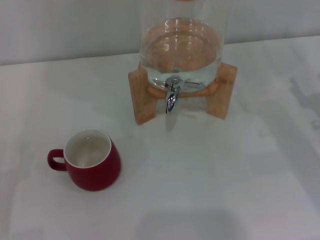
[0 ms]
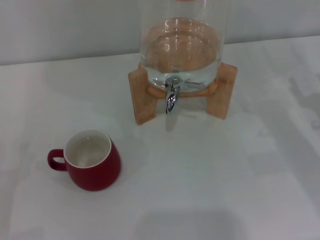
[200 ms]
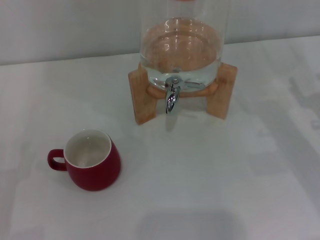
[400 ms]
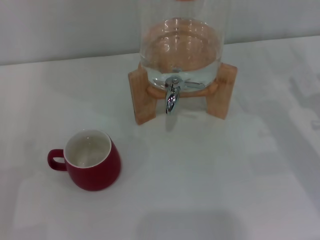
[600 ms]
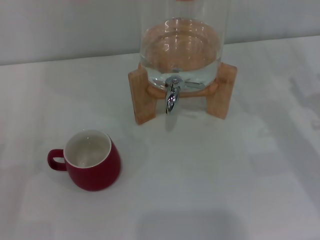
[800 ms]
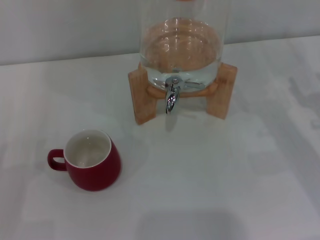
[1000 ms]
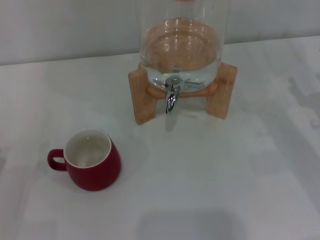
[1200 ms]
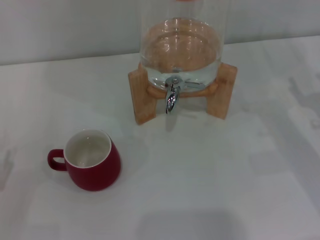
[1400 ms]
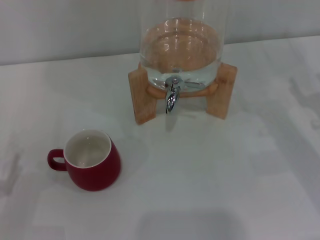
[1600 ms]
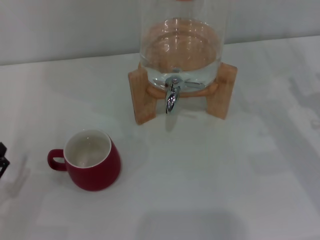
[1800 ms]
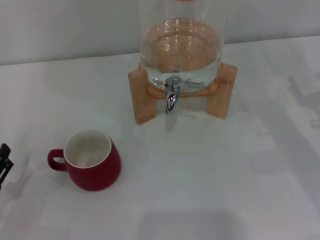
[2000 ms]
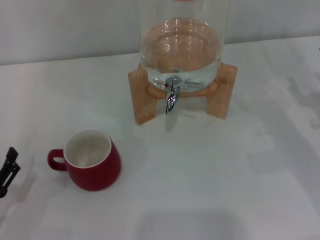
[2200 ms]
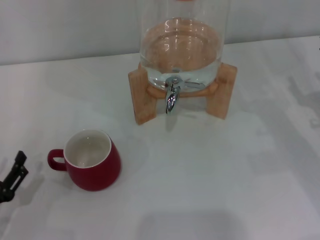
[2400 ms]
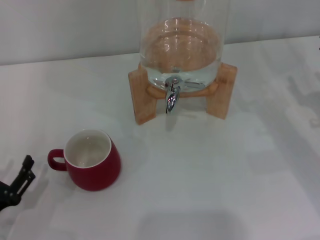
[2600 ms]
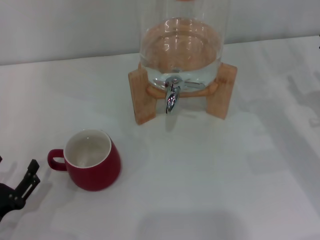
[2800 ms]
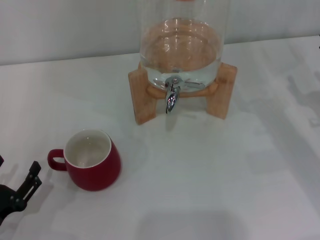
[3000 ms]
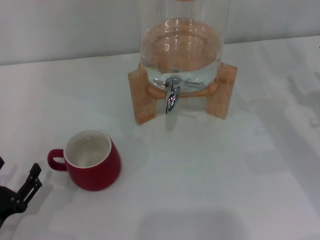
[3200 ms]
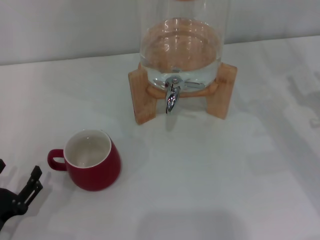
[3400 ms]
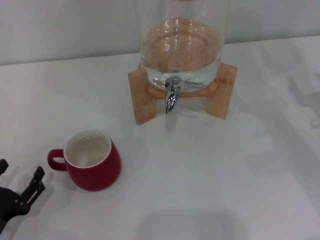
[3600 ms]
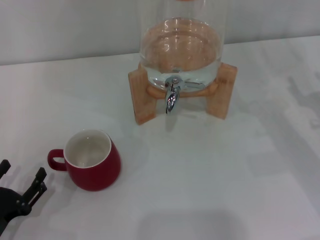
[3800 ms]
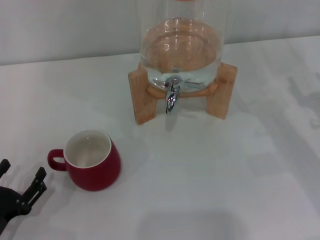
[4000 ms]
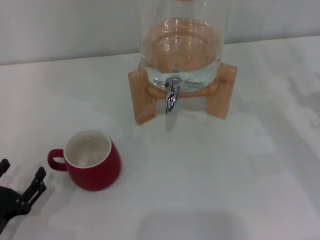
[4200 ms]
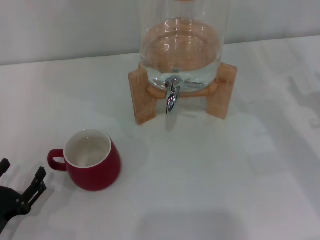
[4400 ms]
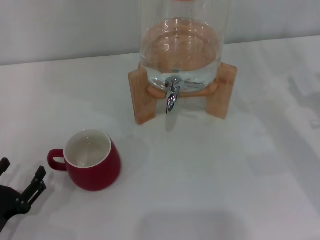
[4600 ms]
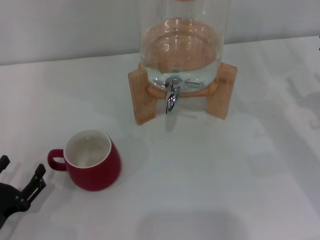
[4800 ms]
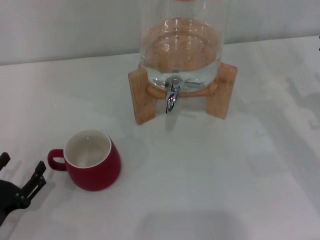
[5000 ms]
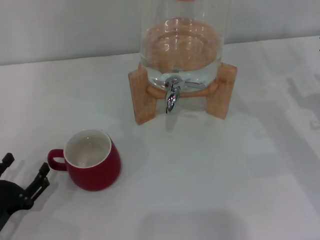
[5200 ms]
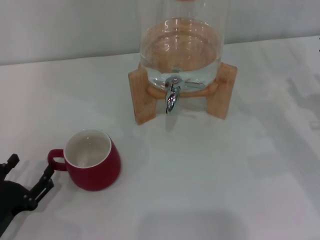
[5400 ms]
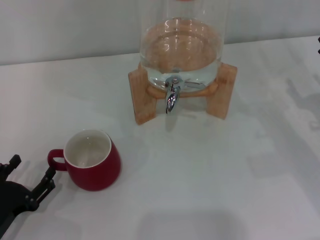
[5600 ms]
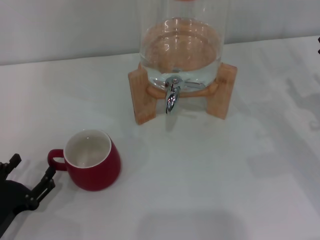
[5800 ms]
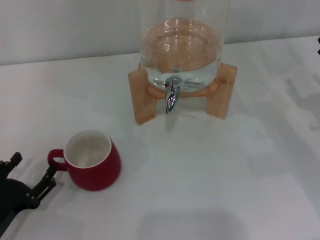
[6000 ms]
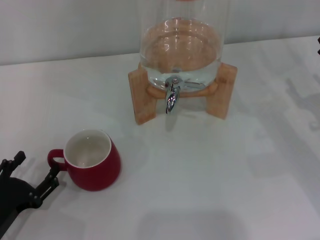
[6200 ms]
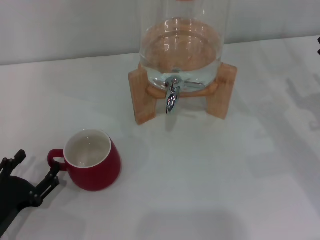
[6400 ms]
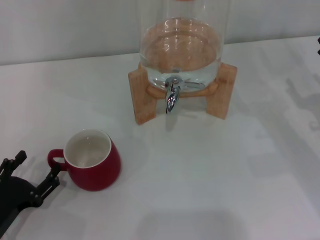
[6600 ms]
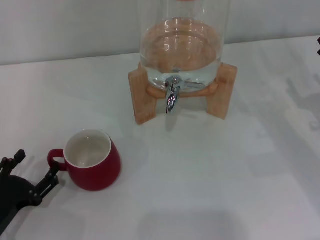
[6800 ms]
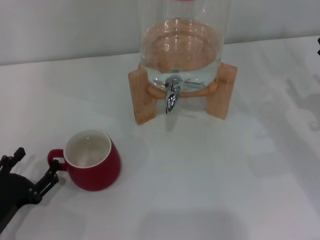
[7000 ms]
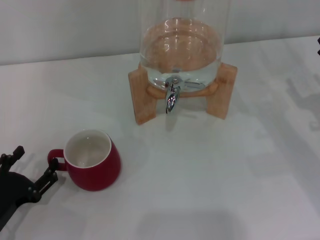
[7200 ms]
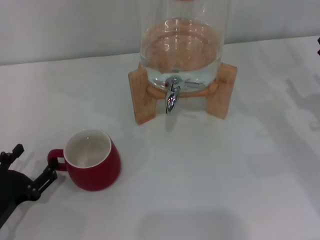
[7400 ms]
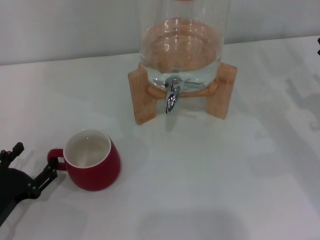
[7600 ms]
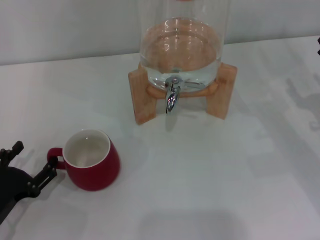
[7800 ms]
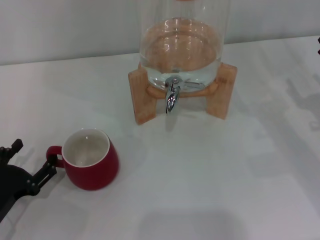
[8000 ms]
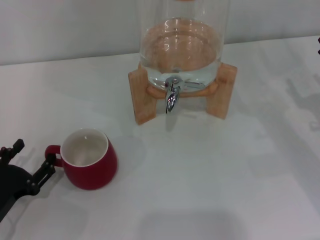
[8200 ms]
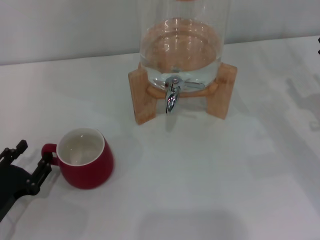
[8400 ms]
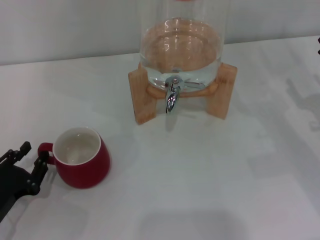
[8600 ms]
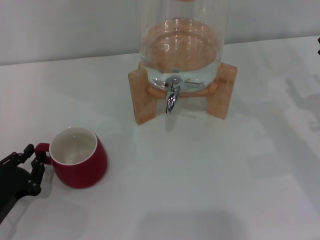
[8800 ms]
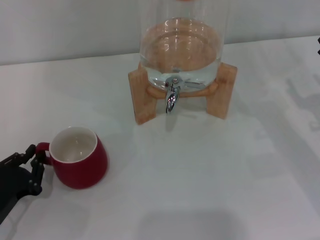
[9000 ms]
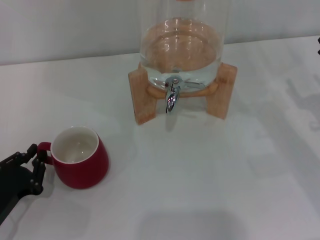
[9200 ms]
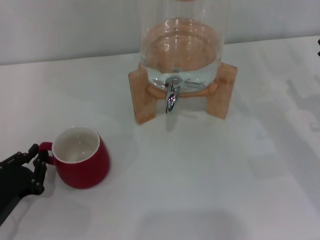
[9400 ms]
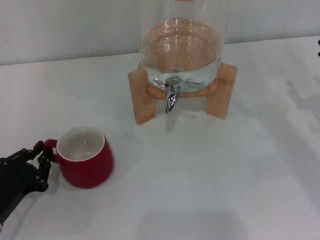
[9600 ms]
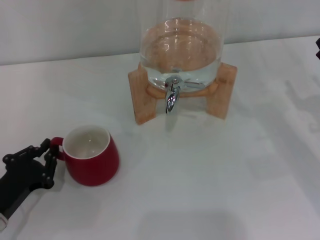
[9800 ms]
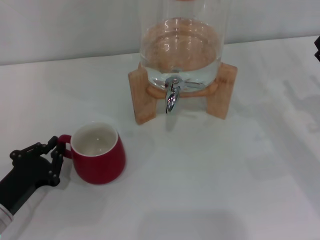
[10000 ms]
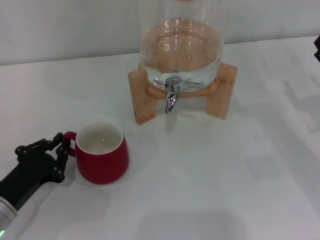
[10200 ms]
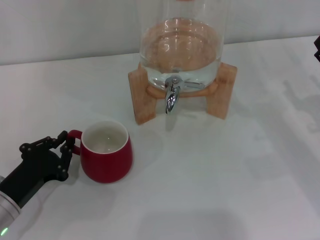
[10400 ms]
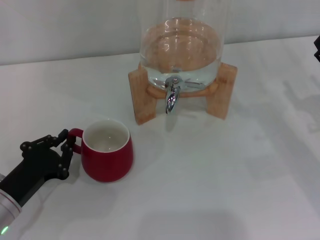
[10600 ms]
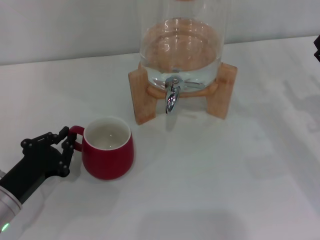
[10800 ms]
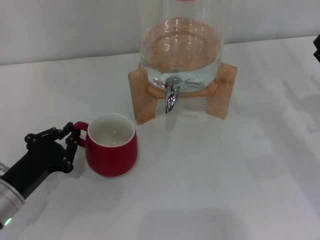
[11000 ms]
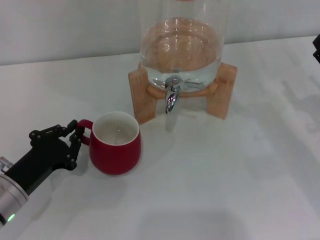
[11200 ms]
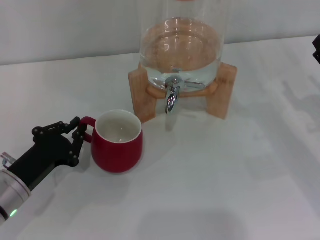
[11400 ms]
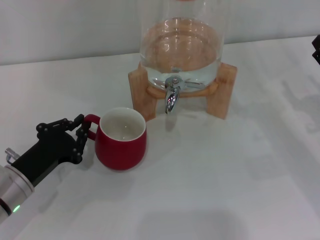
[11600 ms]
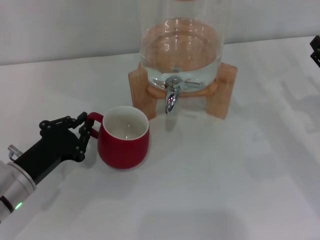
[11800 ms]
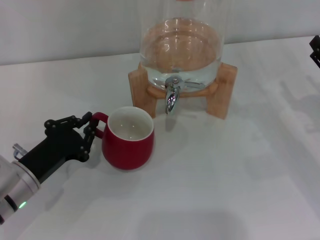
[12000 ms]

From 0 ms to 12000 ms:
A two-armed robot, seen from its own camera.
Task of the whole recording: the left gripper pick up the red cup and place it horizontally under the faucet, the right gripper turn on the faucet to fill the cup, and then turn off the faucet.
From 1600 ms to 3000 ms: There are only small adjustments of the grippers.
From 3000 ms to 4400 ms: The two grippers keep their place.
From 4400 ms to 7600 ms: The grippers move only a little.
From 7600 ms to 9000 ms: The left gripper closes.
From 9000 ms to 10400 ms: There are only small adjustments of the grippers.
From 10400 ms to 12000 ms: There are only small adjustments of the grippers.

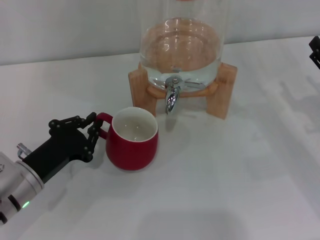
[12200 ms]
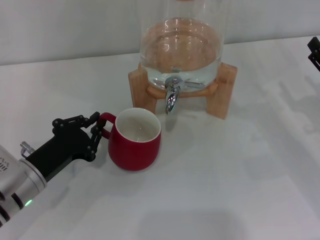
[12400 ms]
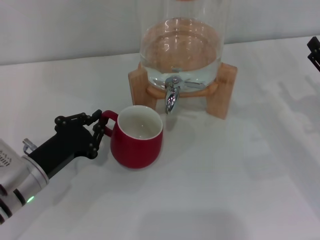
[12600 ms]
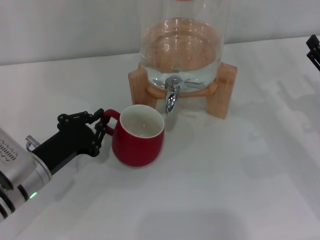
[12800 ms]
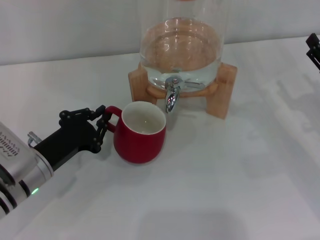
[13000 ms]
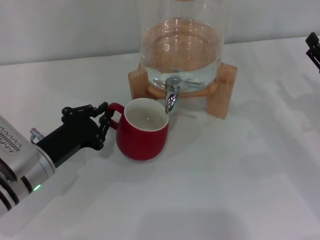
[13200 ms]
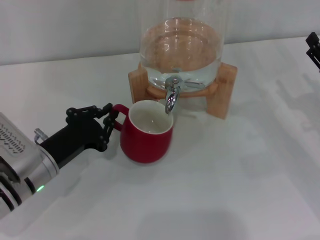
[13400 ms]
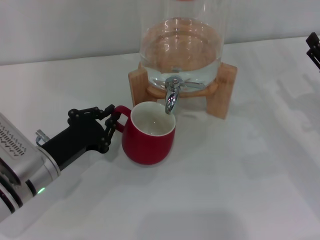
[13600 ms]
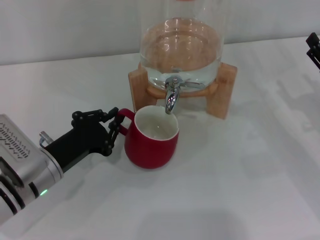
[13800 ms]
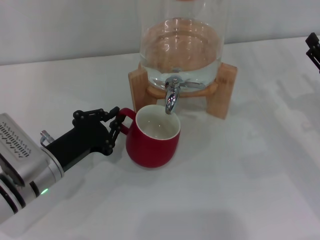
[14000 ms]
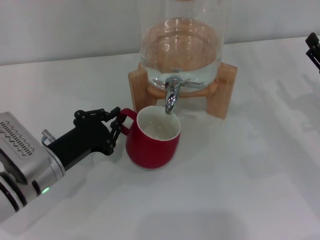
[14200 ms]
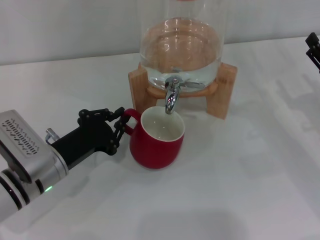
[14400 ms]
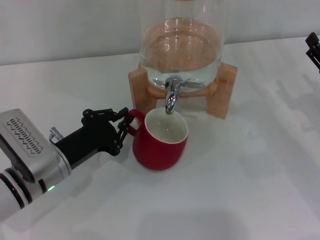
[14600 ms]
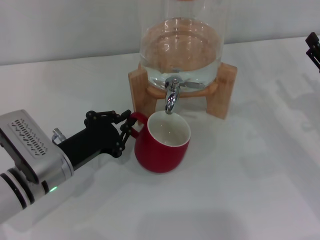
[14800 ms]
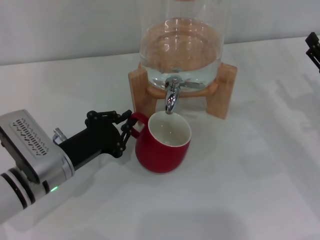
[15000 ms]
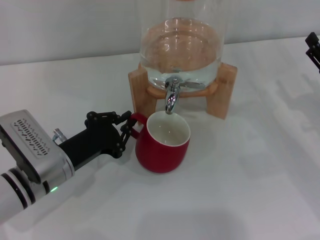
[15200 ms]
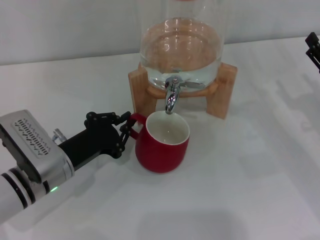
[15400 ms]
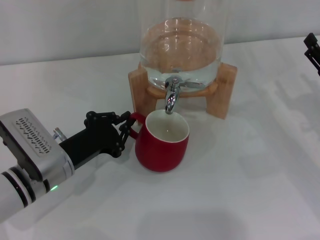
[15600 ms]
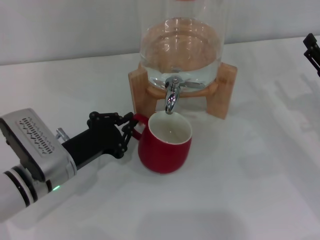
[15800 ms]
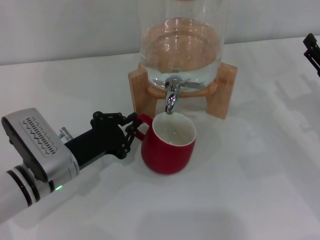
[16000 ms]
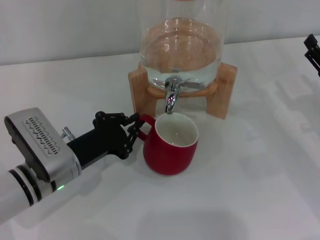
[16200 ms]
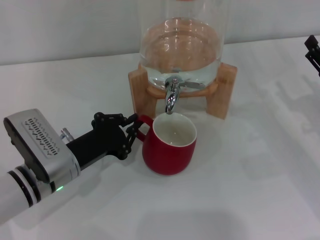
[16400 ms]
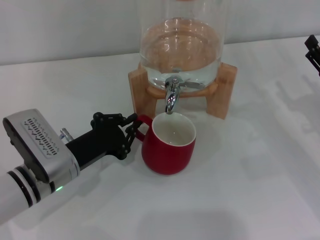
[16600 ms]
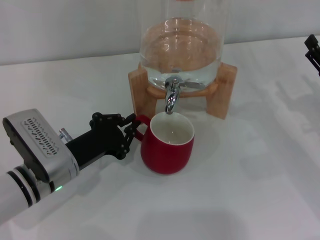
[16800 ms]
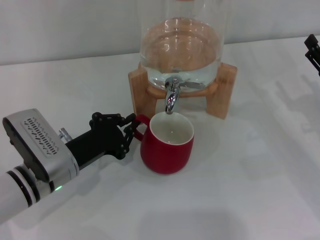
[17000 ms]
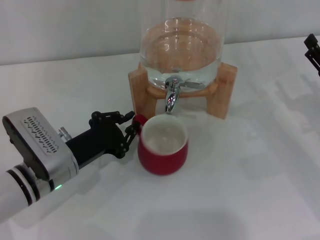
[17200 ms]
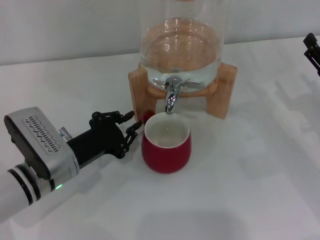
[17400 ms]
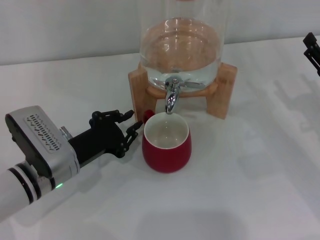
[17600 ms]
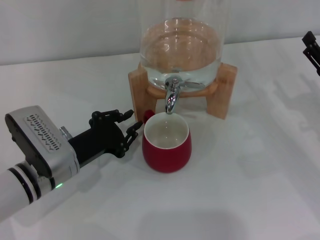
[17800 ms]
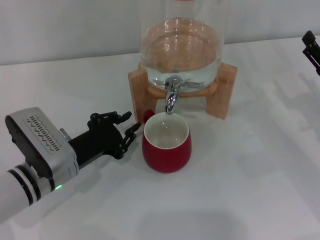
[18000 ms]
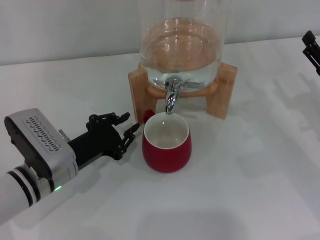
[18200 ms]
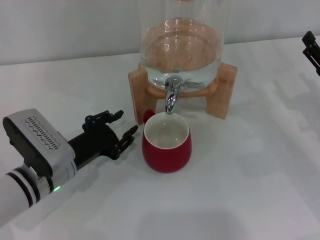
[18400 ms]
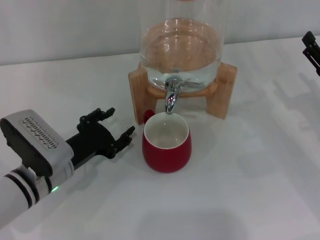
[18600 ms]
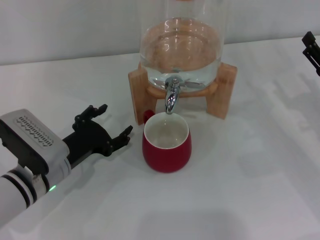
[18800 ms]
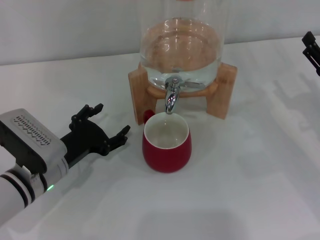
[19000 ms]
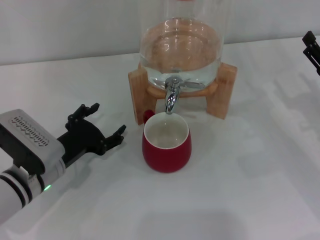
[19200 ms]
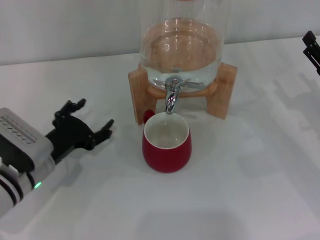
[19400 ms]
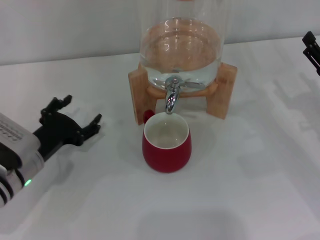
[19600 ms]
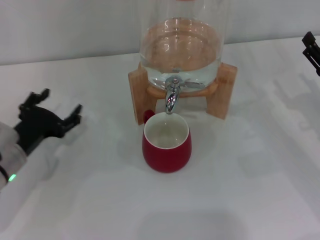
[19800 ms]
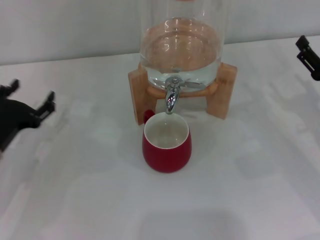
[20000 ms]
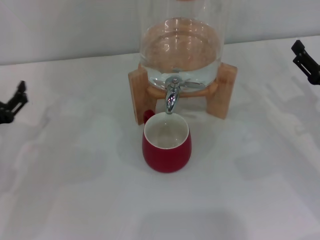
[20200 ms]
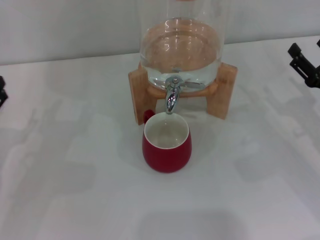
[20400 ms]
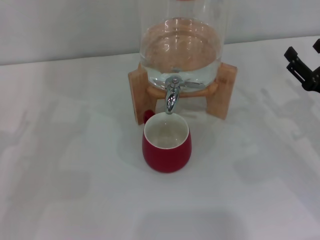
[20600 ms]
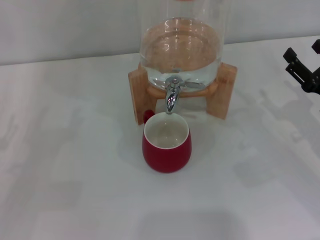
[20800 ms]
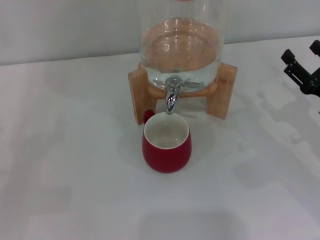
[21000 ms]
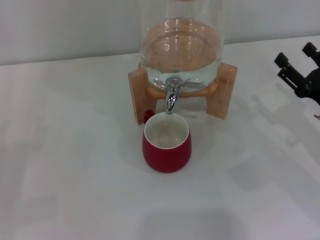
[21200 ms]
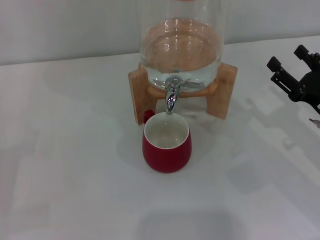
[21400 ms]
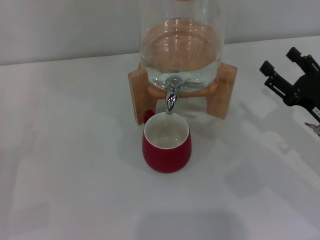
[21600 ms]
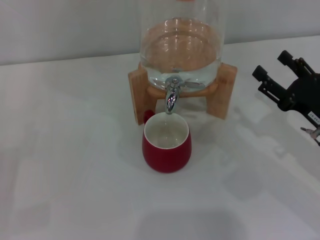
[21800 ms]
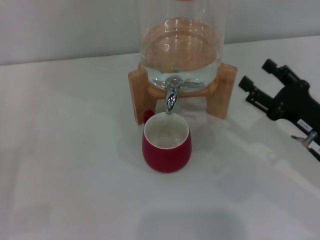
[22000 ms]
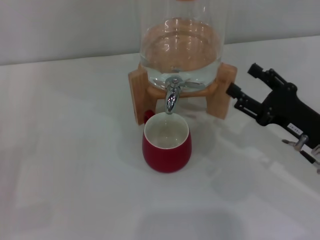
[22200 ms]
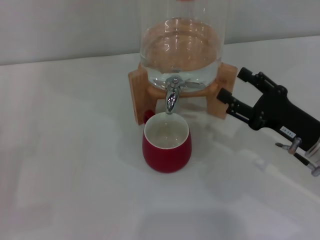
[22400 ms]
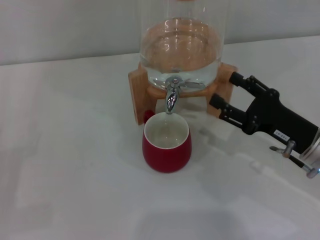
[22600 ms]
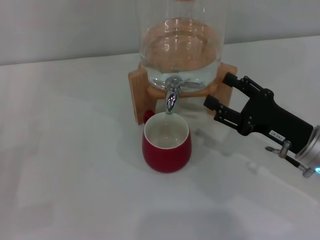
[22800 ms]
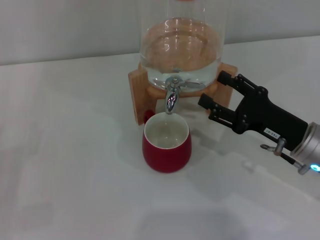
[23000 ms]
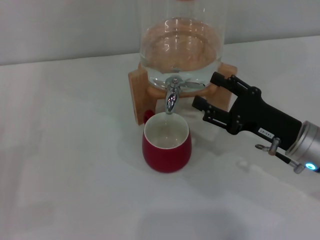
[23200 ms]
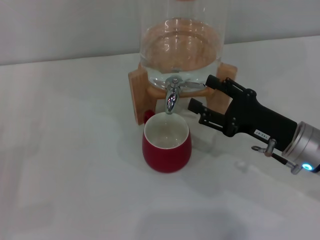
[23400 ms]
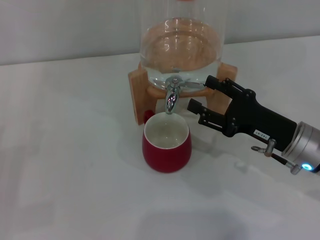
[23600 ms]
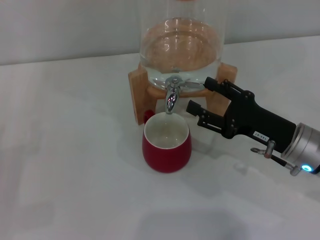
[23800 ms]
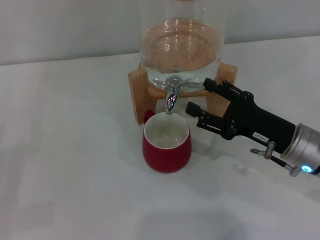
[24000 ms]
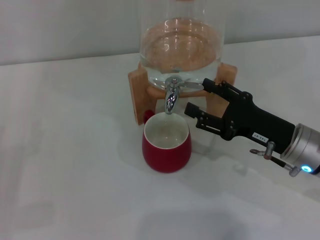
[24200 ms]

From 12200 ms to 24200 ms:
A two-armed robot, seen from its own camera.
Task of the whole recording: the left gripper pick up the red cup and place it horizontally under the faucet, the right gripper turn on the faucet to fill the cup, and then turn off the faucet.
Step, from 12200 ms to 18000 ms: Move the cup beneath the water dispenser nozzle with the left gripper.
From 12200 ms to 15200 ms: The grippers stay close to where they were, moving slightly.
From 15200 ms to 18200 ms: The two grippers keep their place.
From 18200 ms to 19800 ms: The left gripper goes approximately 5 cm to the left, and opens.
From 19800 ms to 21200 ms: The left gripper travels to the left and backward by roughly 15 cm.
From 21200 ms to 22600 ms: The right gripper goes roughly 5 cm to the left.
From 22600 ms to 24200 ms: There are only small adjustments of the grippers.
